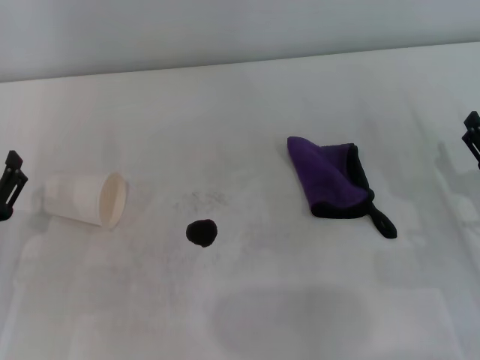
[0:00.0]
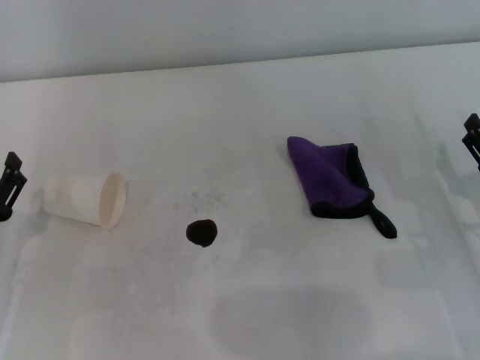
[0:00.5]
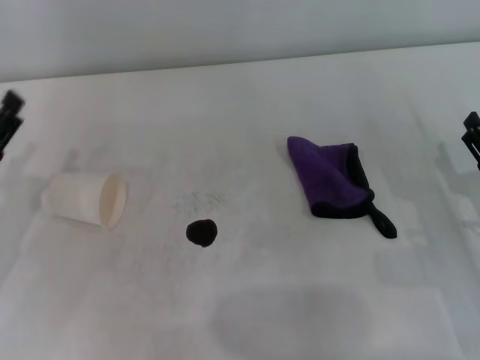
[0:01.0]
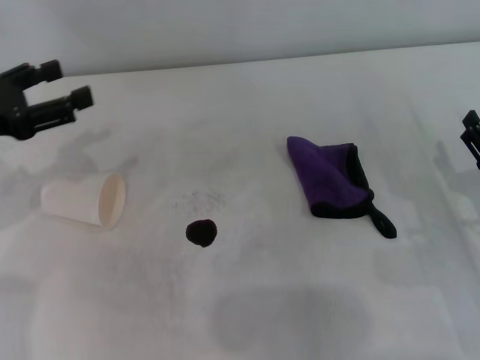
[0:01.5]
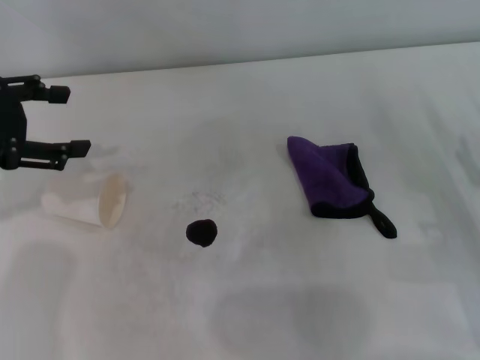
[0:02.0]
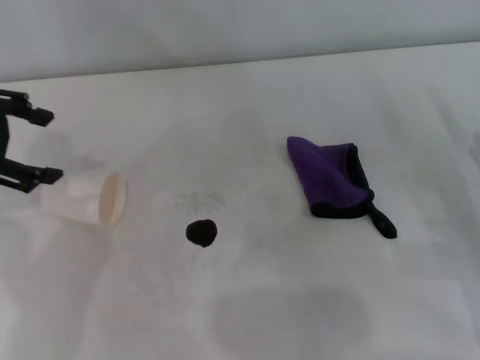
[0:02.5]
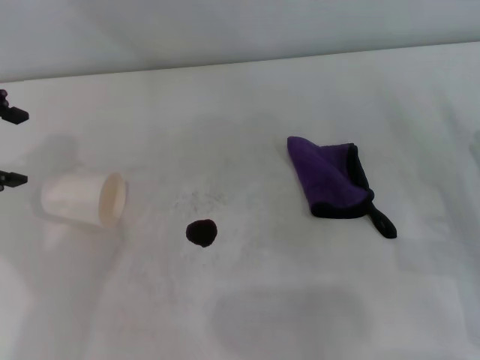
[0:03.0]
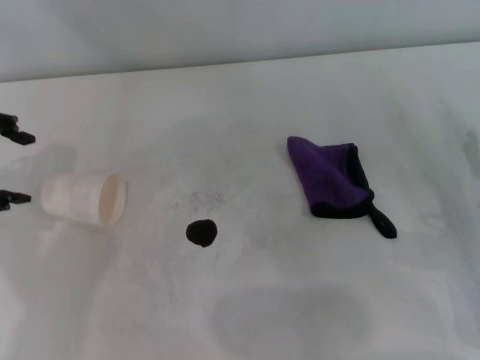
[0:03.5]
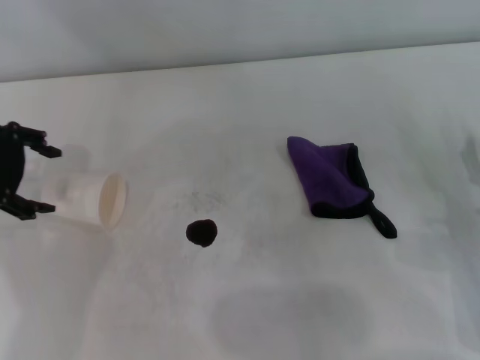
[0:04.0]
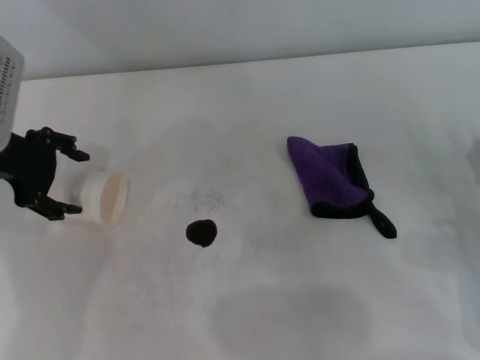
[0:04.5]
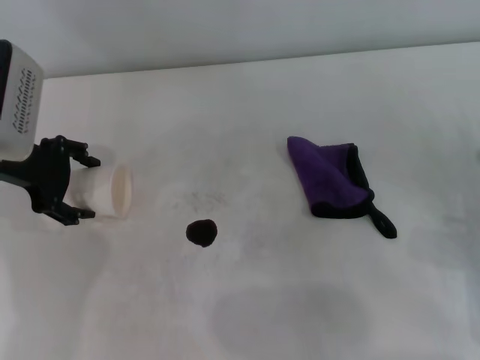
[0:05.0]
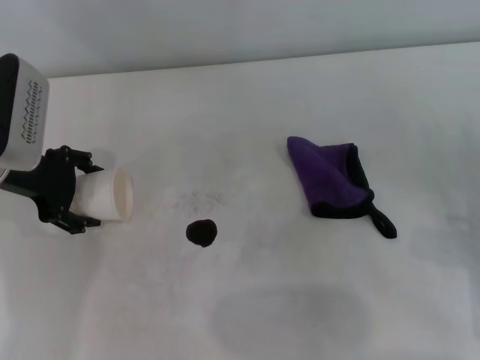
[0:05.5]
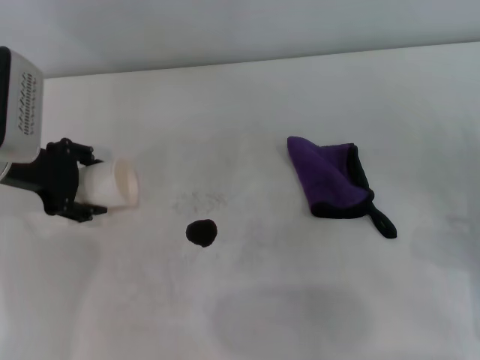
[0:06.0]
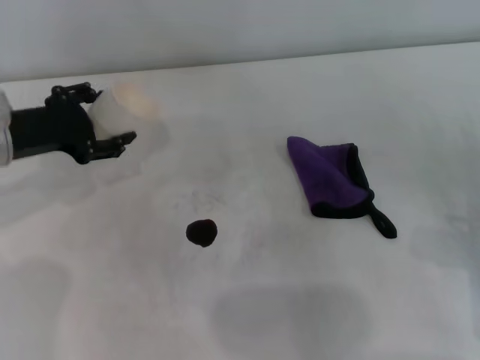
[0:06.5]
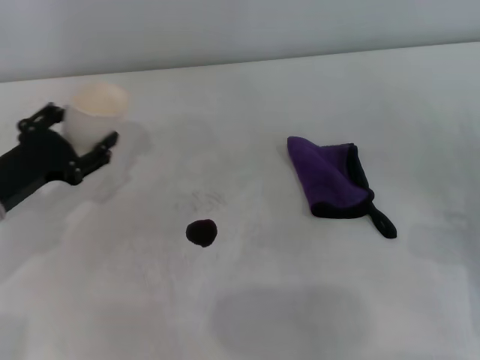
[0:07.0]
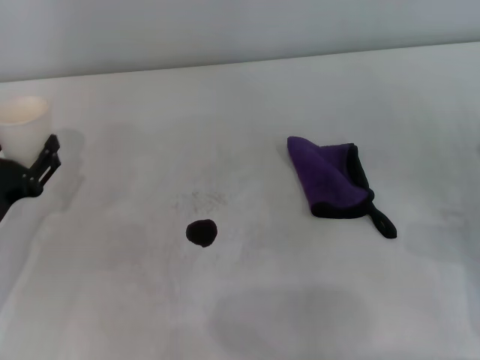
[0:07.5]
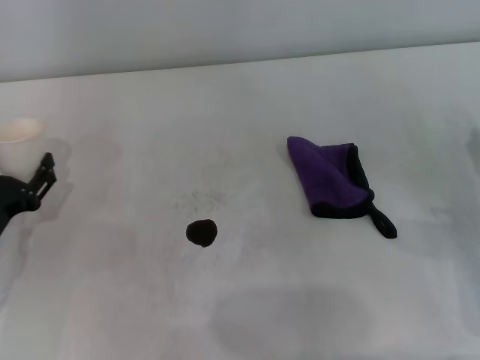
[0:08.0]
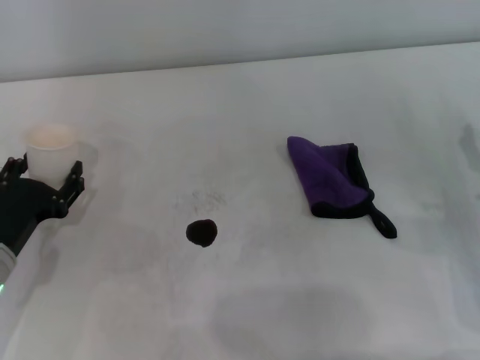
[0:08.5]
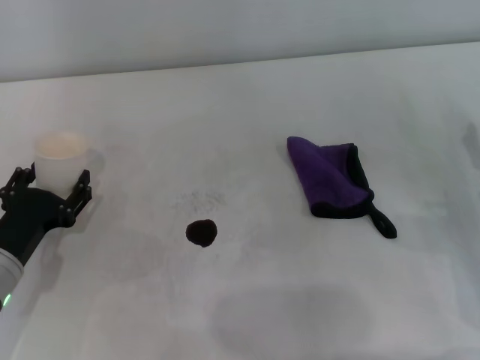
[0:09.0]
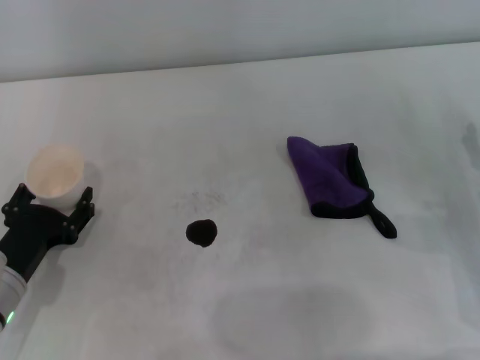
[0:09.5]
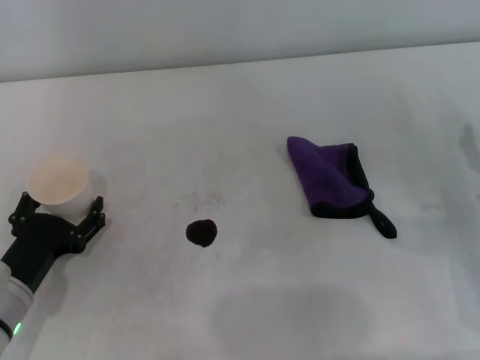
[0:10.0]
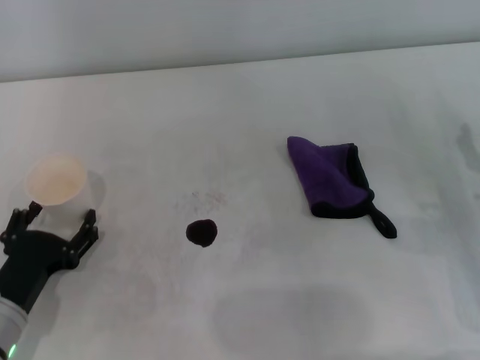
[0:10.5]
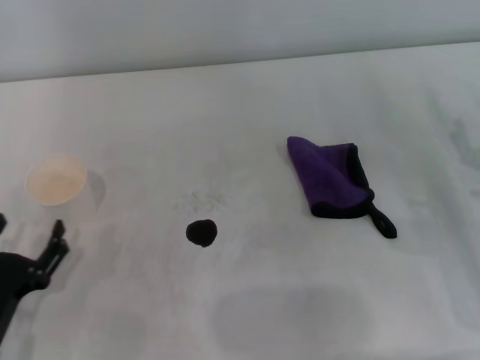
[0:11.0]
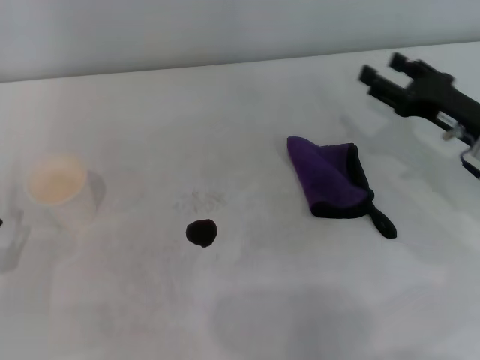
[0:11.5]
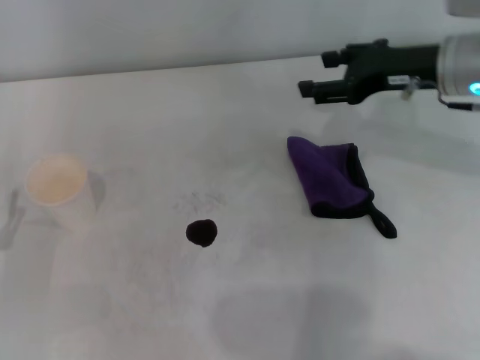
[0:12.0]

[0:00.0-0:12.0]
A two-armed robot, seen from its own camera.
Step, 0:00.0 to 0:05.5: Grasp the paper cup with the left gripper.
Step, 0:06.0 to 0:10.0: Stand the paper cup upright with the left gripper.
0:00.0 to 0:02.0: The left gripper goes roughly 20 cm upward and forward.
0:02.0 to 0:04.0: The left gripper reaches approximately 5 cm upward, then returns.
0:04.0 to 0:06.0: The left gripper heads downward, covering about 5 cm, and closes.
0:06.0 to 0:08.0: The left gripper travels backward and downward by approximately 15 cm, and closes its fingers.
0:08.0 to 0:10.0: The left gripper shifts by approximately 5 cm, and opens.
0:10.0 to 0:12.0: The left gripper moves to the left, some 5 cm, and opens its fingers. Meanwhile the right gripper travels upward, forward and to the left by about 20 cm.

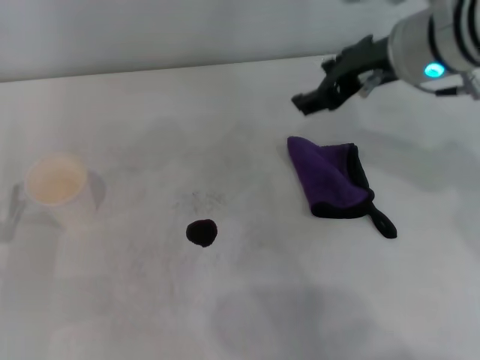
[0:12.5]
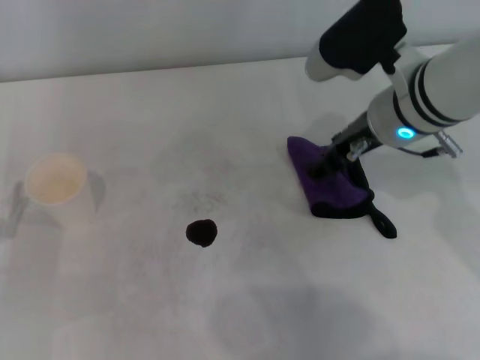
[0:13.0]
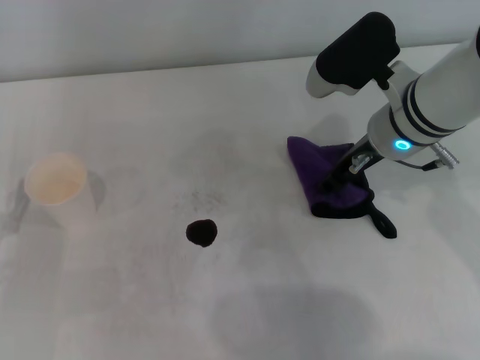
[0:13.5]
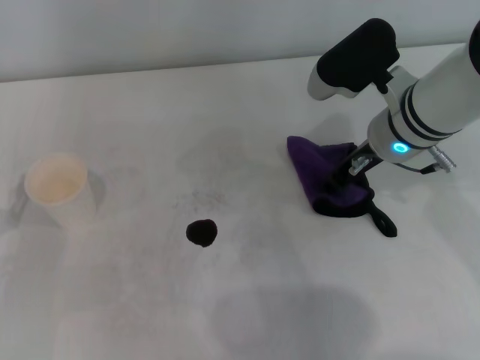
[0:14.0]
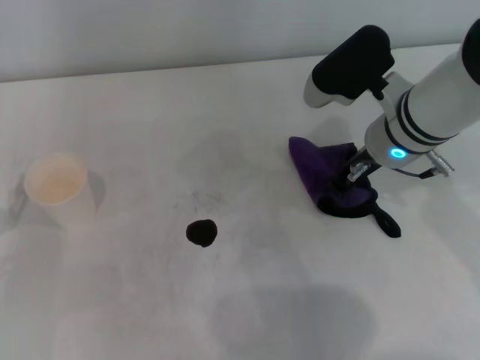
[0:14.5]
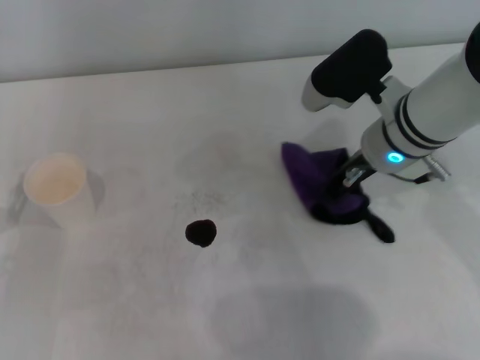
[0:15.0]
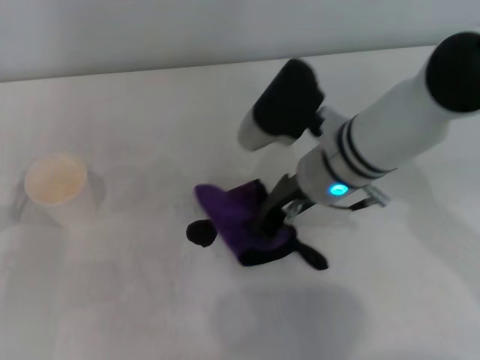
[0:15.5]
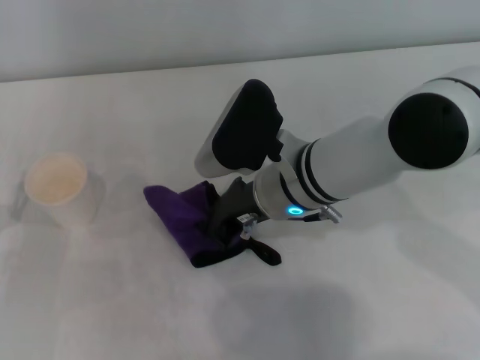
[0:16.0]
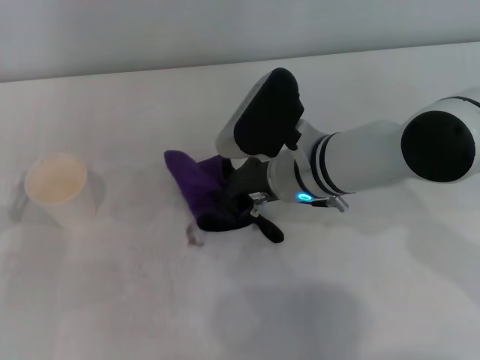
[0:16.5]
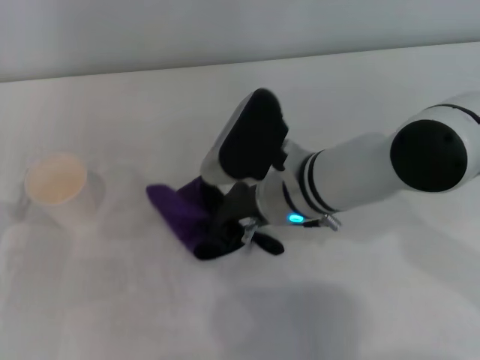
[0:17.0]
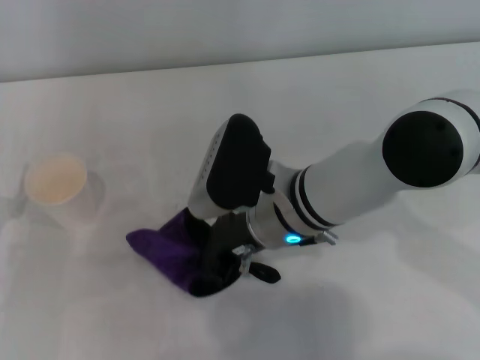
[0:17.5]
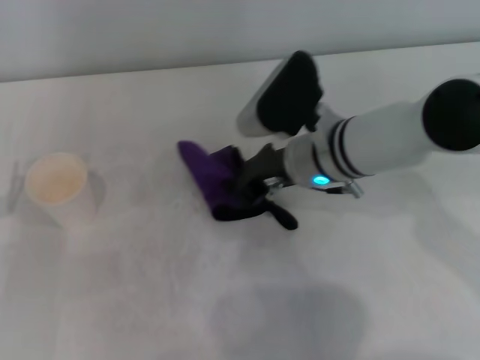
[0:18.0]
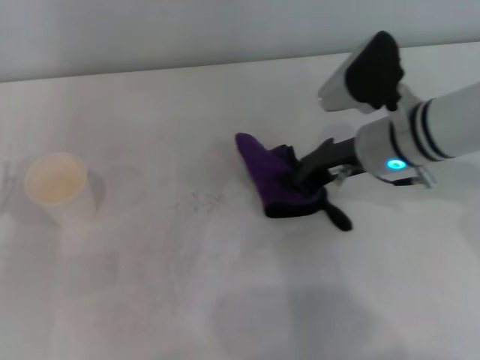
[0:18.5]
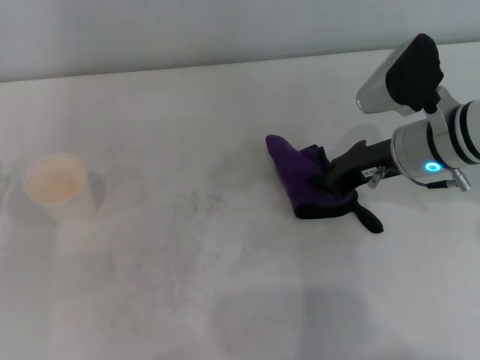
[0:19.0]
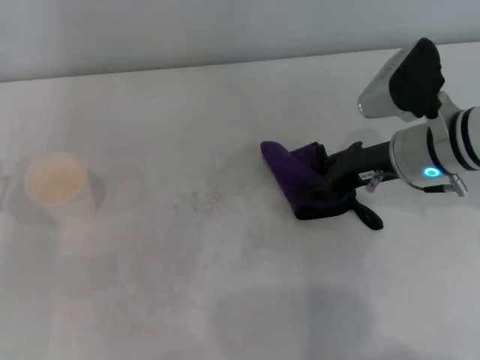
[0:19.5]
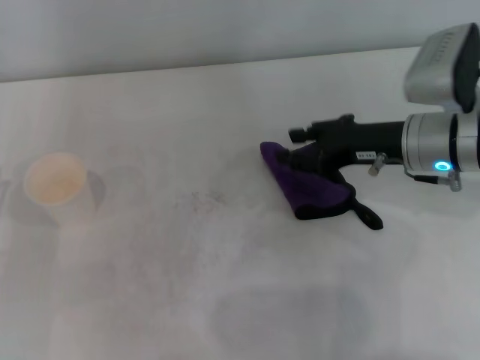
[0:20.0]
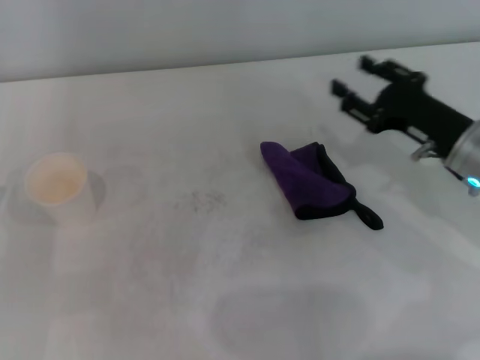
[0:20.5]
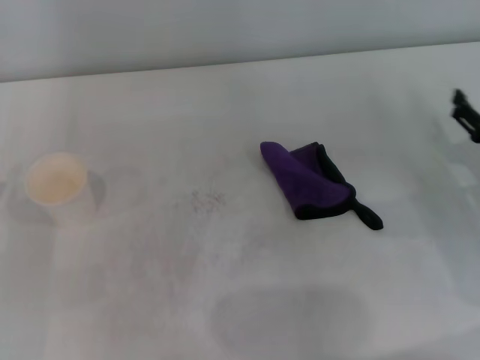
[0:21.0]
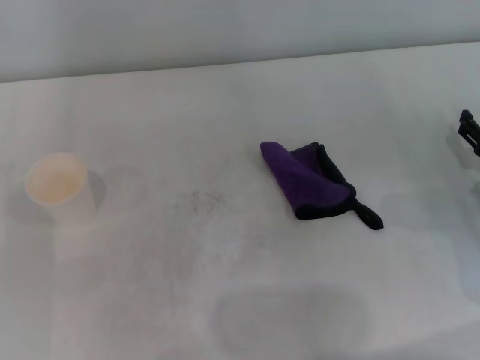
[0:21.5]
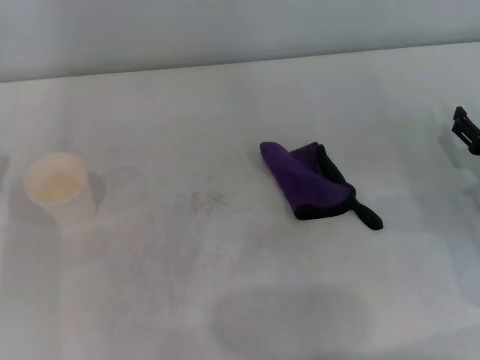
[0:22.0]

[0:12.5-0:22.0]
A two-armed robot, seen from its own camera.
Step, 0:12.5 to 0:14.5: Grasp the rag with the right gripper.
Step, 0:15.0 to 0:18.5: Wipe the stains off the table with the right gripper.
Step, 0:19.0 to 0:19.5: Place the rag on the table with the right gripper.
0:12.5 to 0:14.5: The right gripper shifts approximately 10 cm downward, and closes.
0:14.5 to 0:16.5: The right gripper shifts about 10 cm to the left.
0:16.5 to 0:18.0: There are only small adjustments of the grippers.
0:18.0 to 0:20.0: The right gripper shifts approximately 10 cm to the right, and opens its fingers.
0:20.0 to 0:22.0: The right gripper shifts some 15 cm to the right, downward and backward, and opens its fingers.
